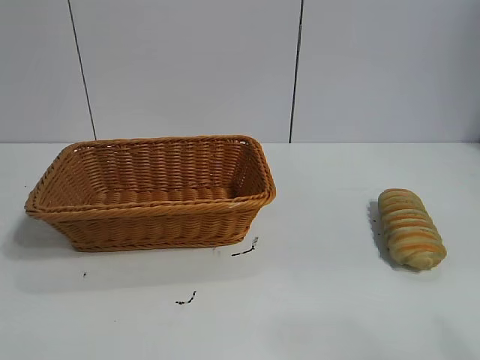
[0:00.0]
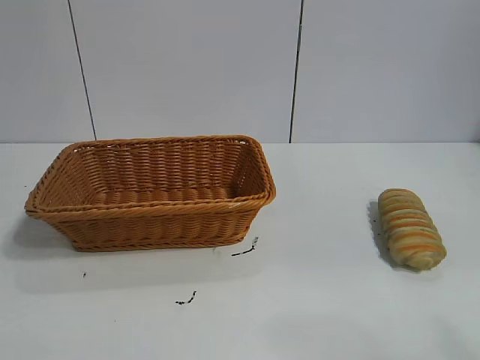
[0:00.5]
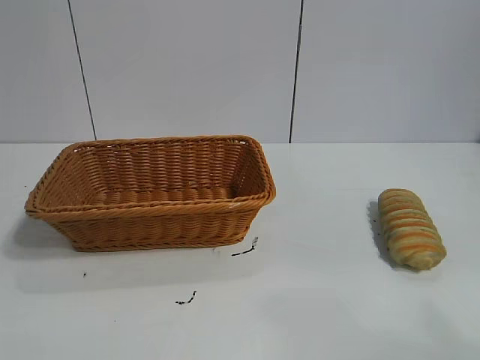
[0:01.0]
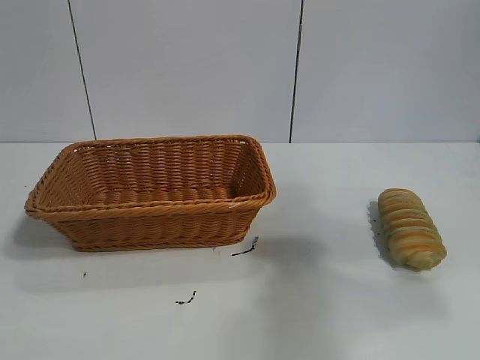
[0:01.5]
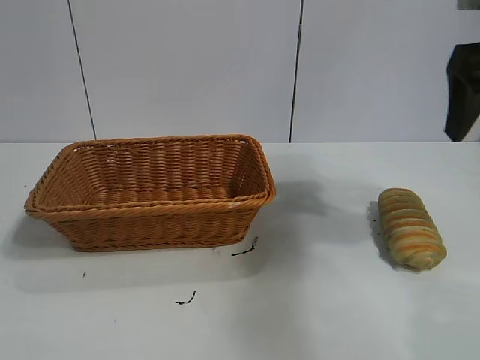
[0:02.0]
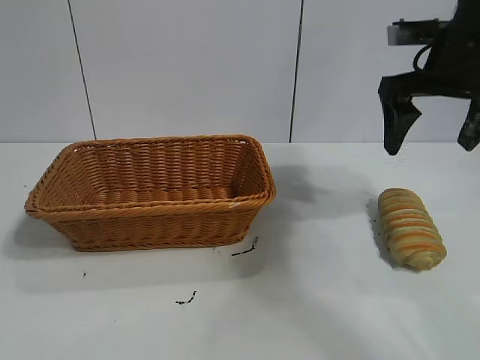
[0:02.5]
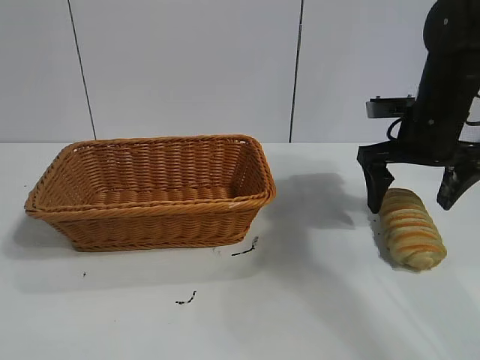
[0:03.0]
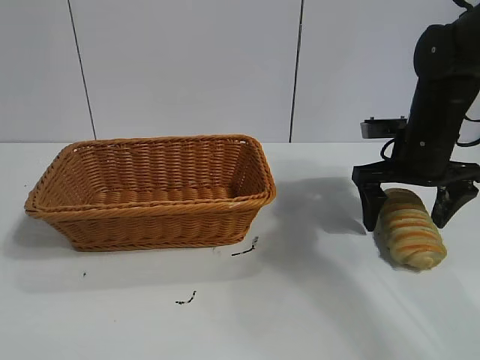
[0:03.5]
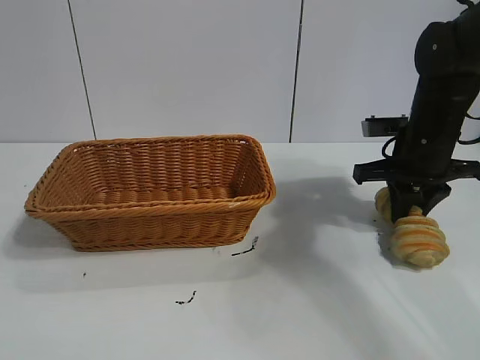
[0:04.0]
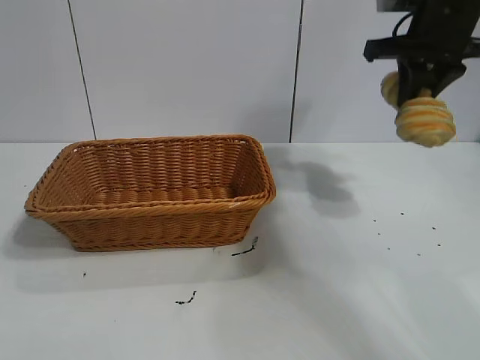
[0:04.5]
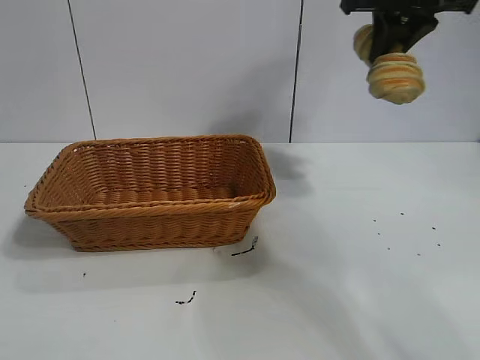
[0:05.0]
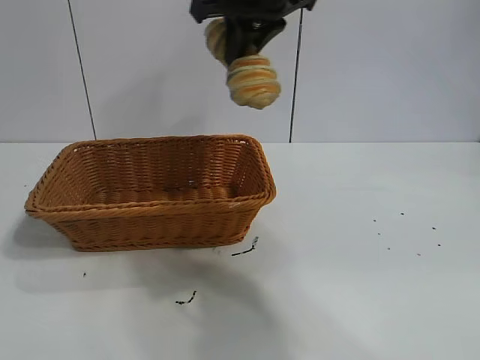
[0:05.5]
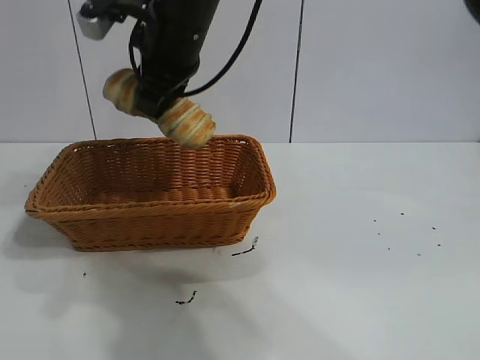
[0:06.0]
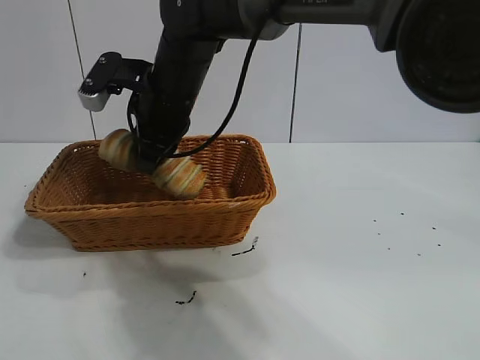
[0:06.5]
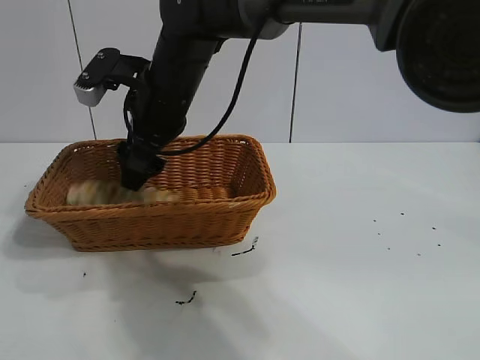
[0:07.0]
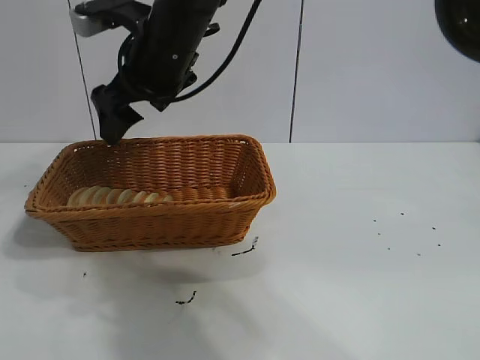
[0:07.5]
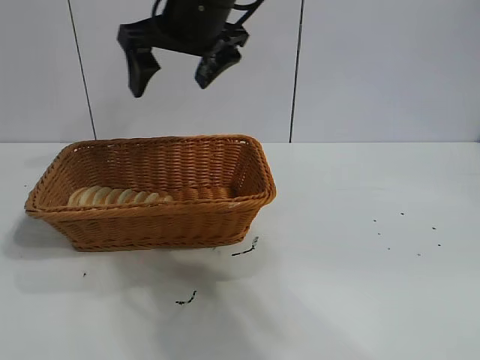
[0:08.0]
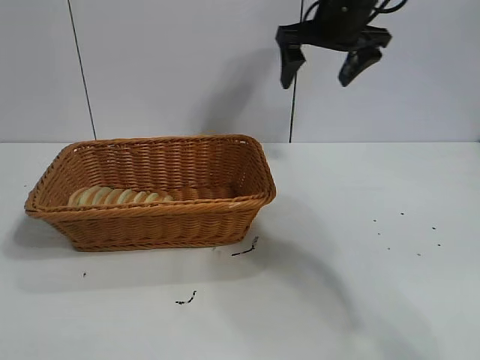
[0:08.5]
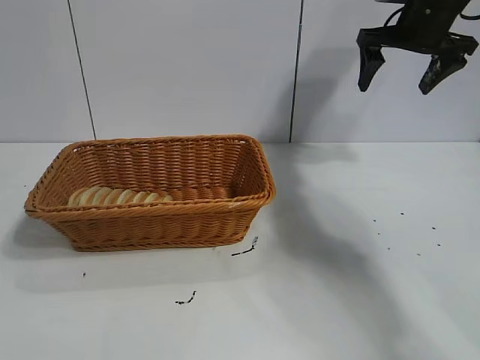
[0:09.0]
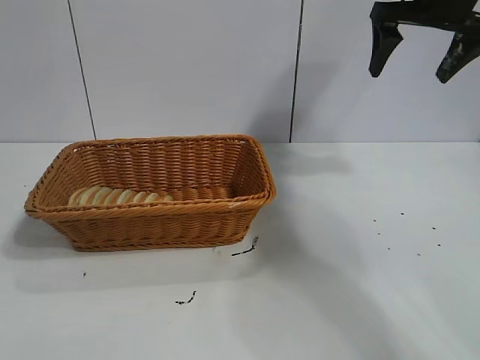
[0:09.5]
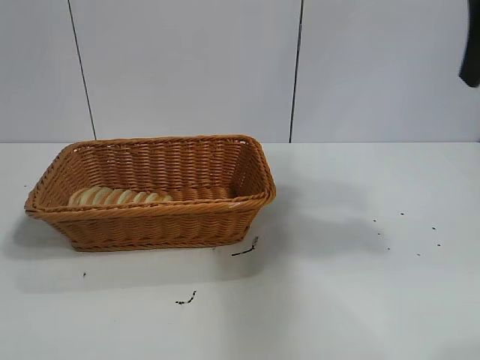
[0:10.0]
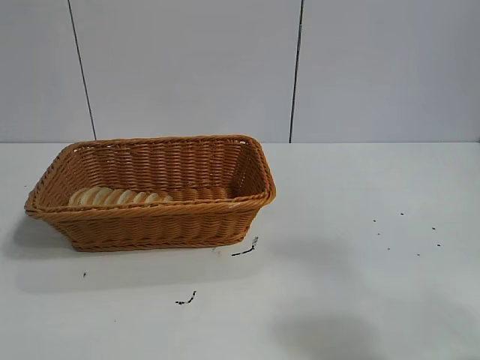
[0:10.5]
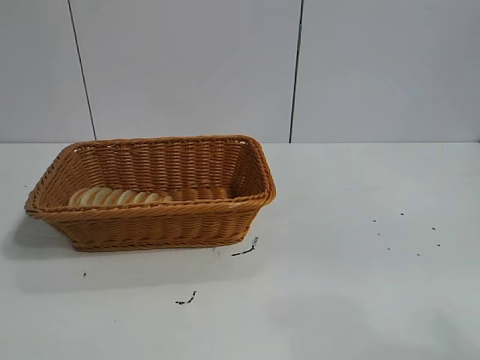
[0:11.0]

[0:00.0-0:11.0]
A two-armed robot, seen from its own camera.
Task of the whole recording: pick up the long bread and put it into the basket.
Step, 0:02.0 to 0:04.0: Grasp the long bread with right gripper.
Step, 0:04.5 to 0:07.5: Place the long bread in the basket with right gripper.
